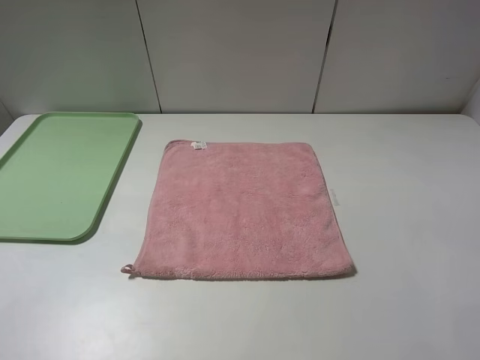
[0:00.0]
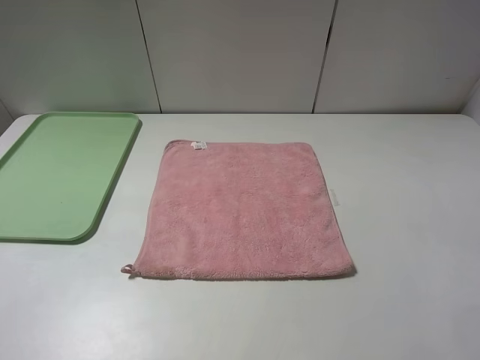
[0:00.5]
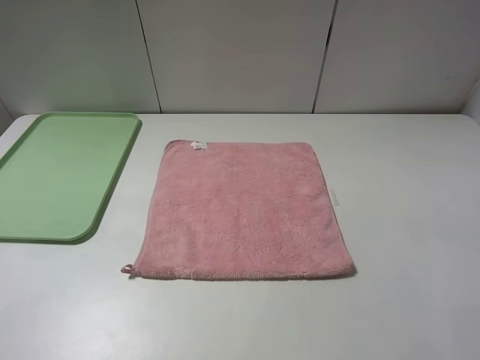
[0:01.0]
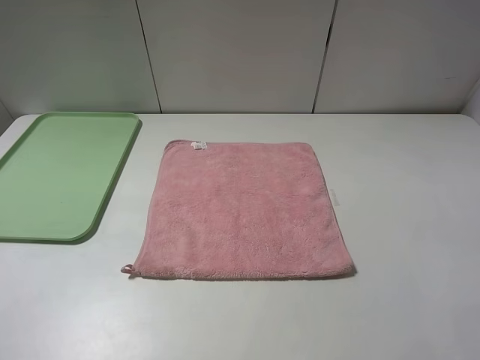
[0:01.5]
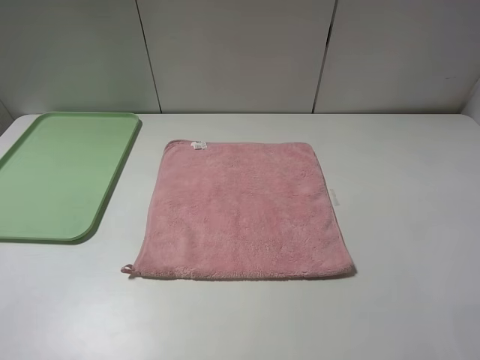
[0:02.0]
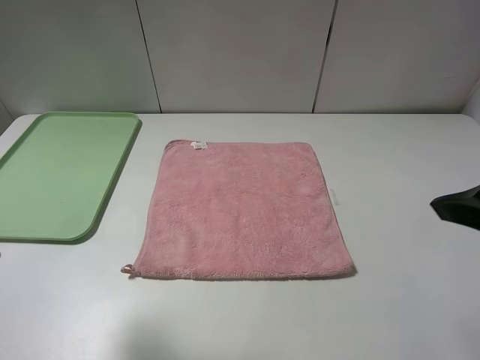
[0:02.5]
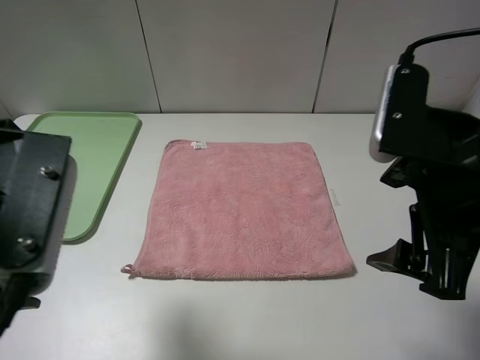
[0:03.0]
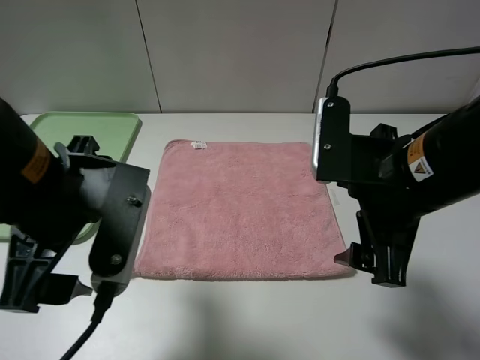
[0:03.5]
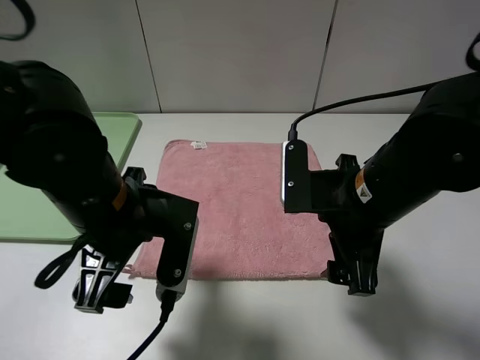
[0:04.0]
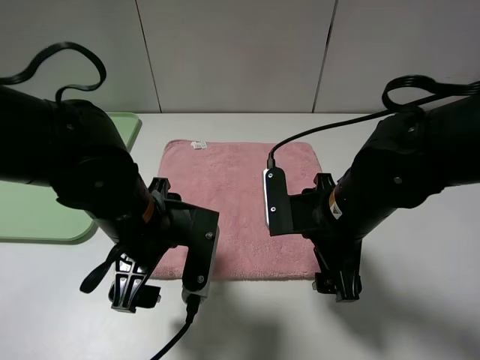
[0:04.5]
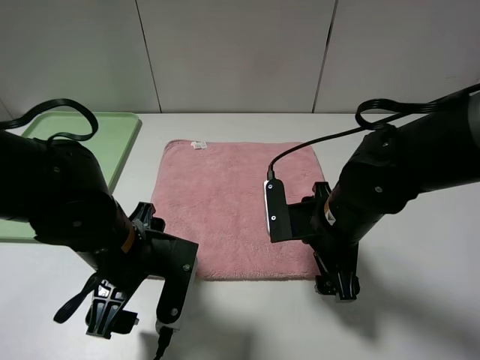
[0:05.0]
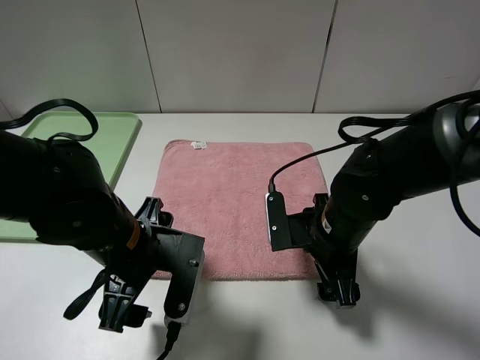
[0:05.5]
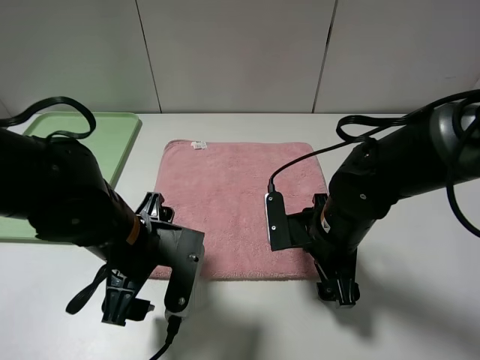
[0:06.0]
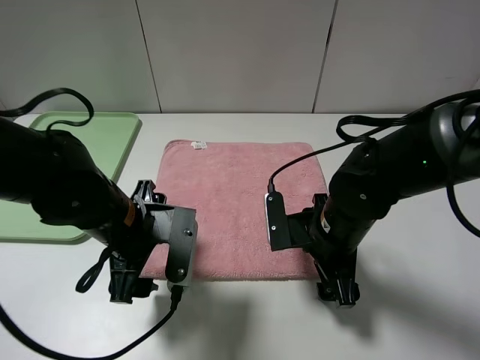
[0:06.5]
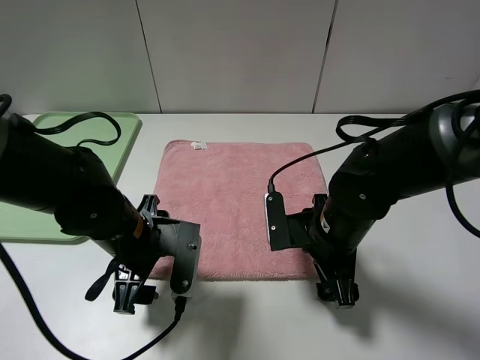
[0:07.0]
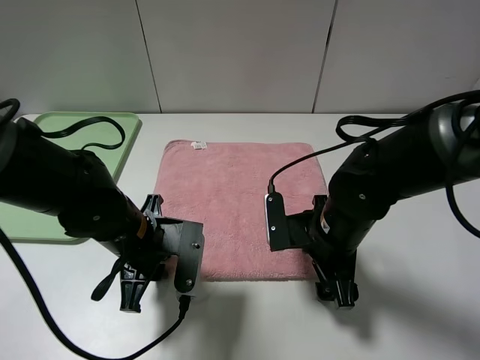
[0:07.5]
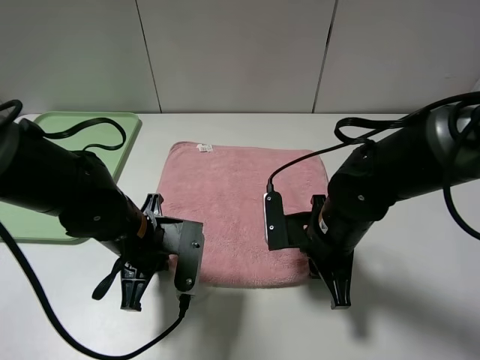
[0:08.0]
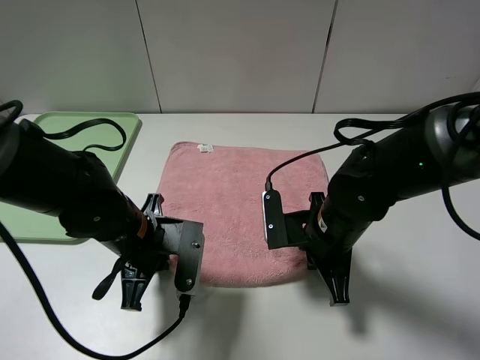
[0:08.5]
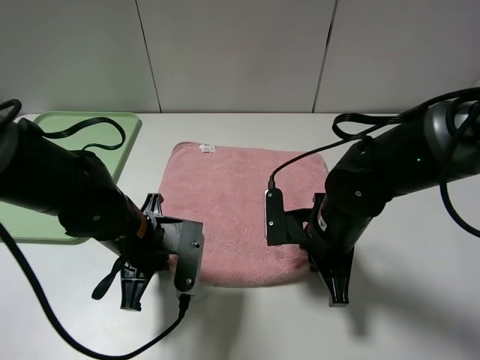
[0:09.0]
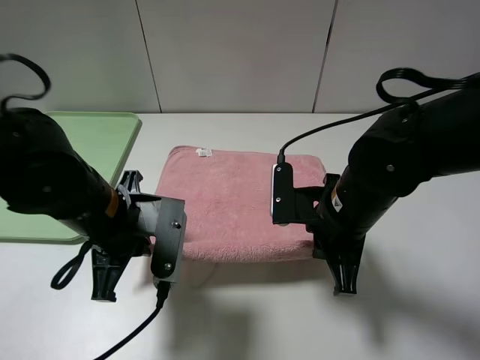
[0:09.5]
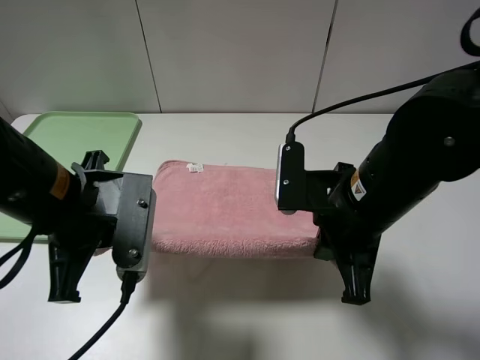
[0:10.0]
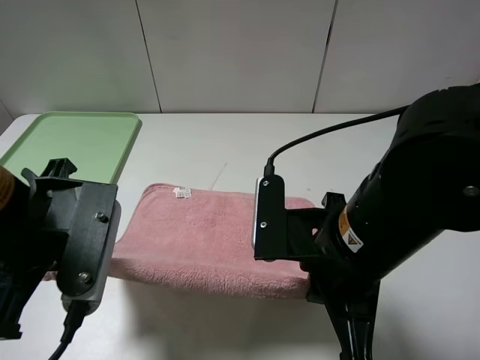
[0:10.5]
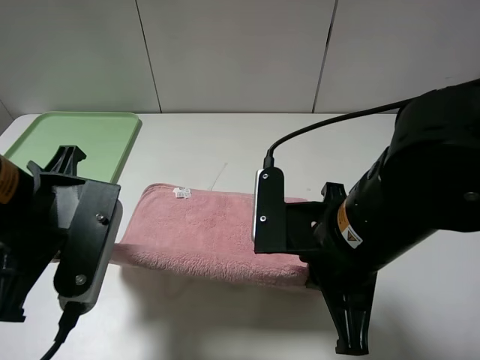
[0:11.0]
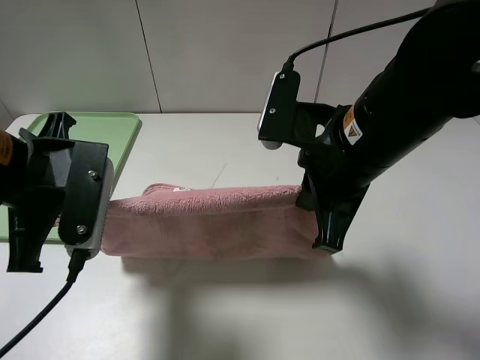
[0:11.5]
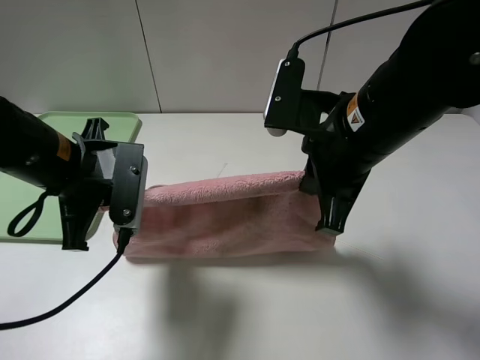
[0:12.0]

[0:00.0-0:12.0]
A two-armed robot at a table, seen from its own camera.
0:02.0 to 0:04.0: The left gripper shifts about 30 cm to the right, downward and forward; the right gripper moves to the left, downward and forward, about 25 cm.
0:04.0 to 0:06.0: The right gripper shifts some 10 cm downward.
0:06.0 to 0:08.0: The right gripper closes its fingers. The left gripper closes its fingers.
0:08.0 to 0:10.0: Both grippers travel together upward, approximately 10 cm.
0:10.0 to 0:12.0: The left gripper shifts approximately 5 cm forward, while the right gripper heads upward, covering approximately 5 cm.

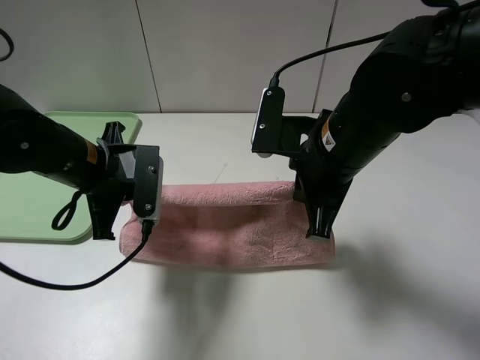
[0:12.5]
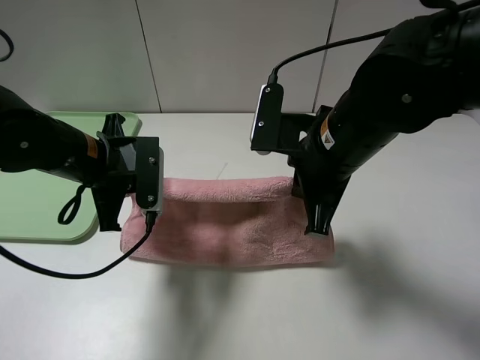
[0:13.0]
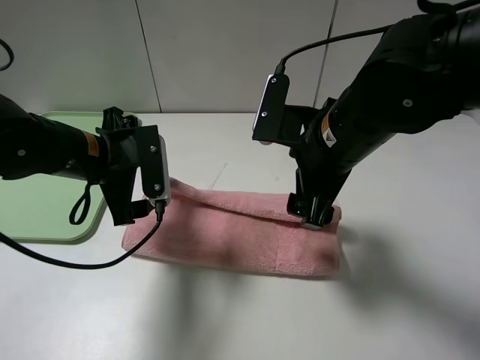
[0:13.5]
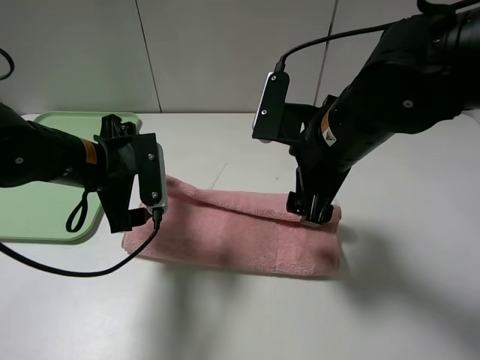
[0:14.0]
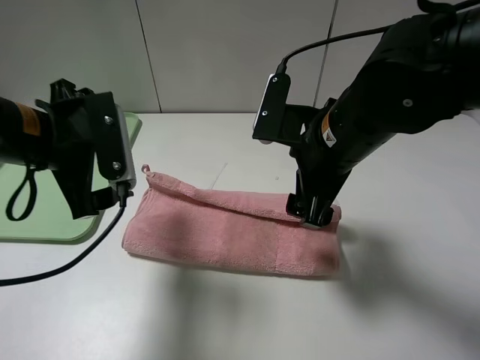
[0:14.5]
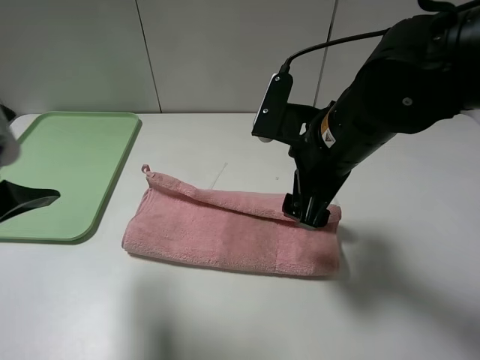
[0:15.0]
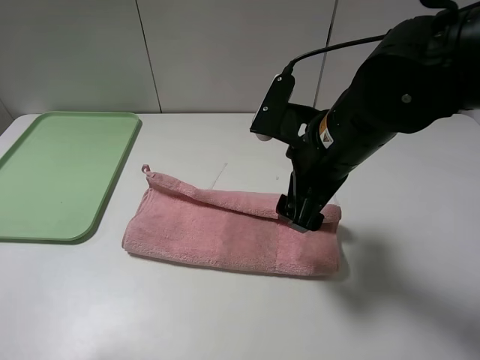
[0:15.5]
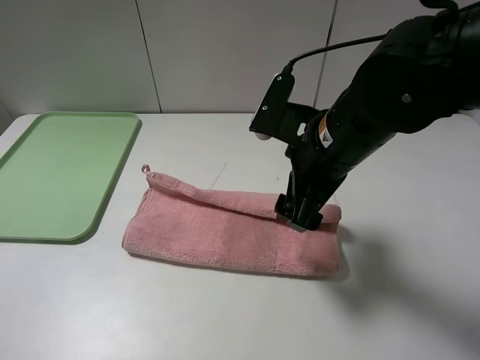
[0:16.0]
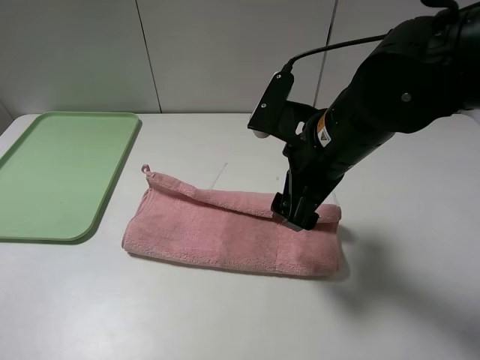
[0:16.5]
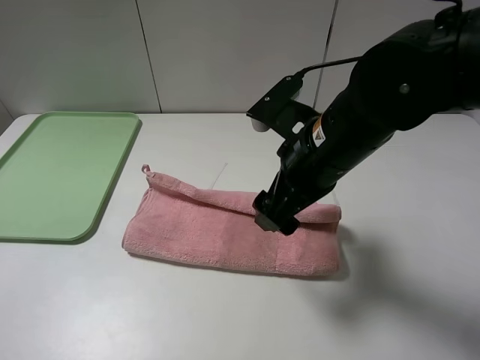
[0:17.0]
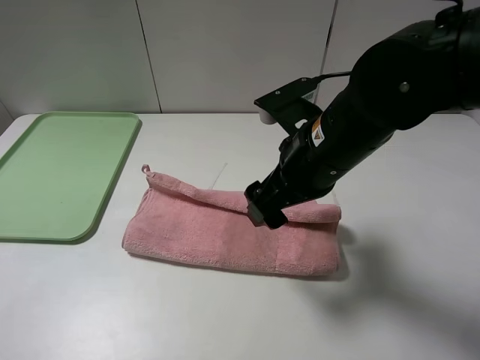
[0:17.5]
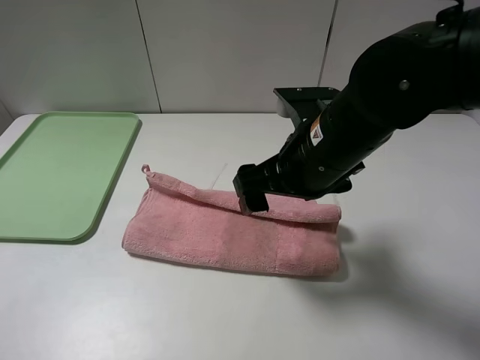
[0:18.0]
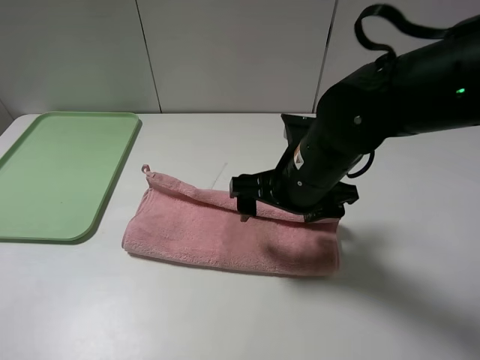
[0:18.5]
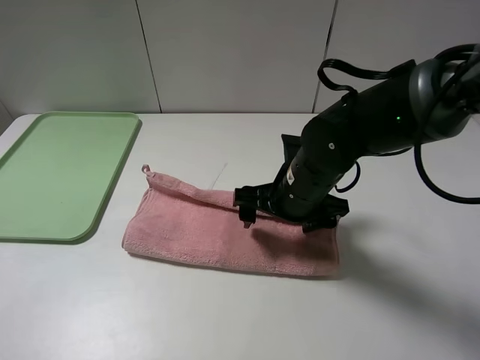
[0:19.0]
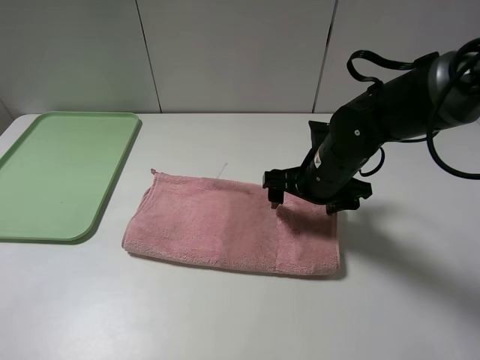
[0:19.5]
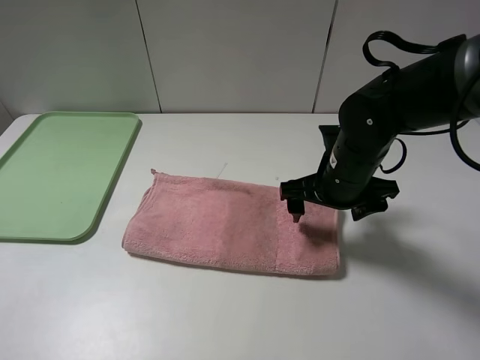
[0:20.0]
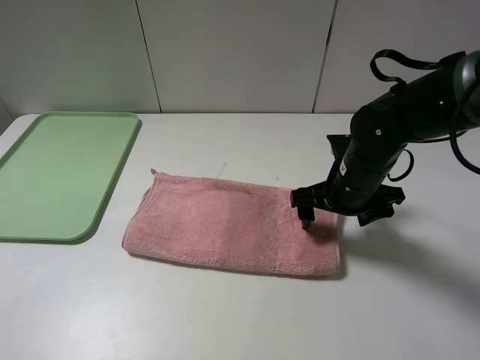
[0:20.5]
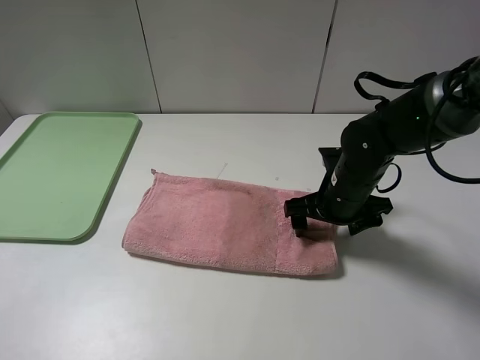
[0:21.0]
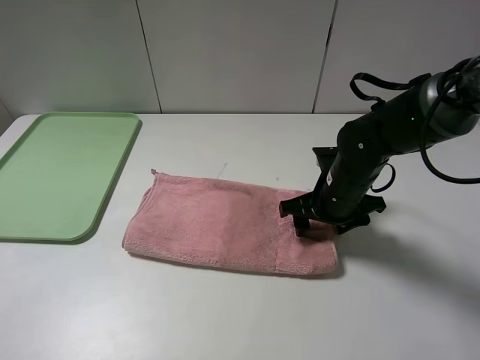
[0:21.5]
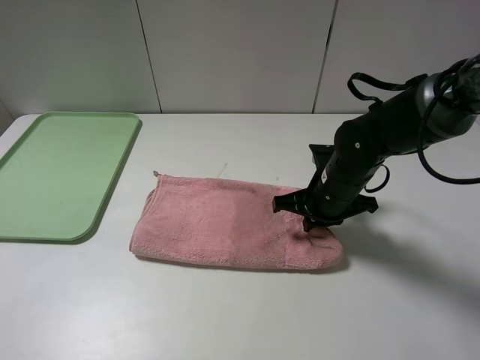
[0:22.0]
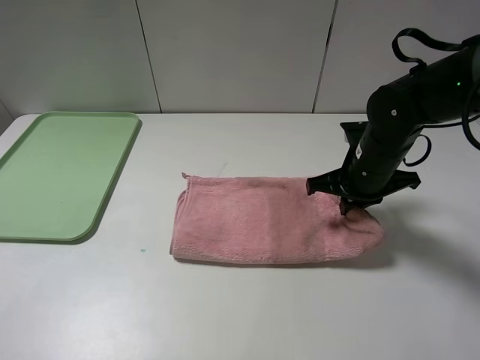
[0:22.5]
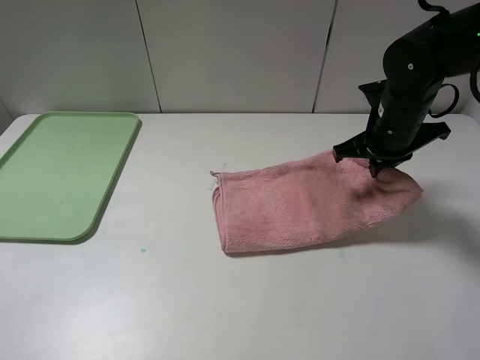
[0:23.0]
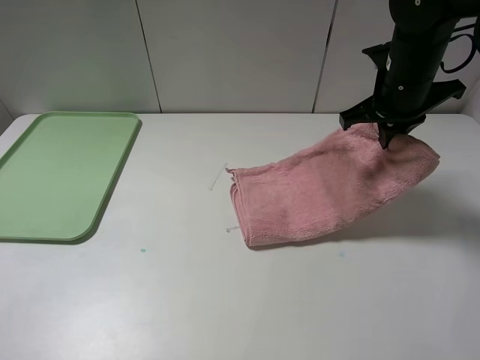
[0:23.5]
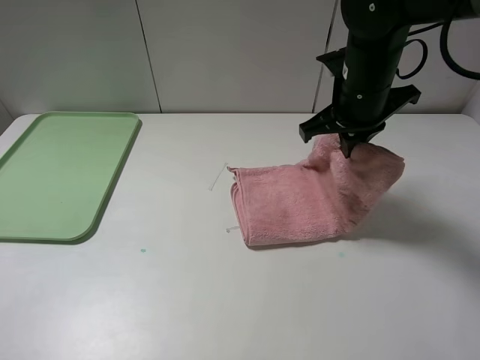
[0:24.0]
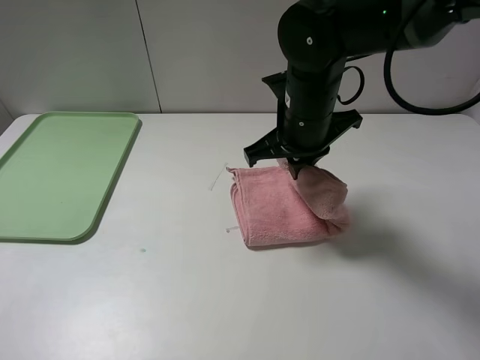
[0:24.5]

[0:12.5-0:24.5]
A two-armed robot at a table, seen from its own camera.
Step, 0:12.5 to 0:19.5: Fold the pink towel upwards.
0:12.5 to 0:14.5: The left gripper moves upward, approximately 5 cm, and opens, while the right gripper opens up.
0:14.5 to 0:16.5: The left gripper moves backward and to the left, about 25 cm.
0:18.5 to 0:20.5: The right gripper travels to the right by about 10 cm.
0:20.5 to 0:22.5: The right gripper closes.
0:22.5 to 0:24.5: The right gripper moves to the left and upward, some 15 cm.

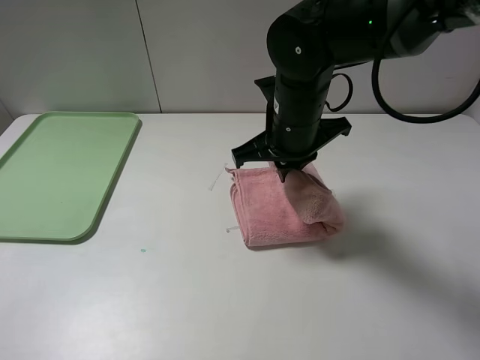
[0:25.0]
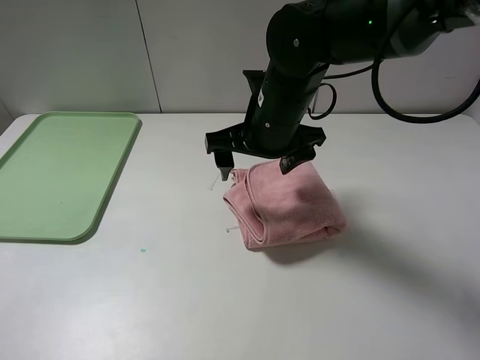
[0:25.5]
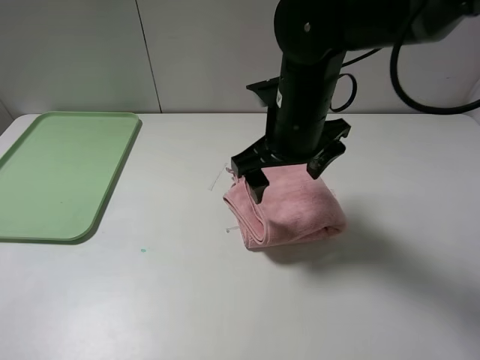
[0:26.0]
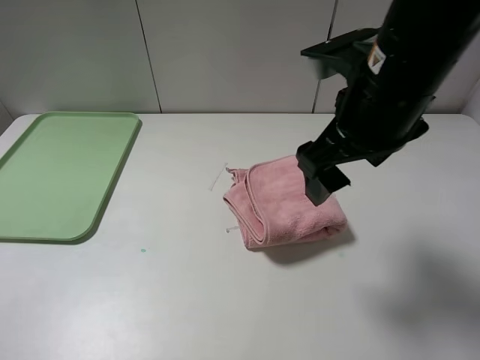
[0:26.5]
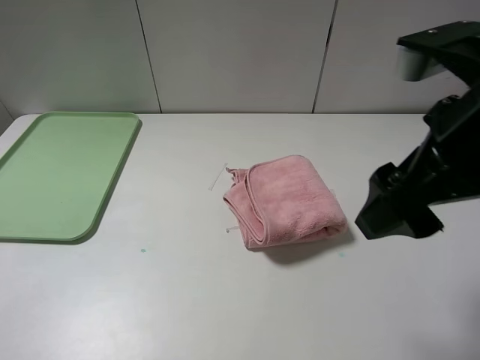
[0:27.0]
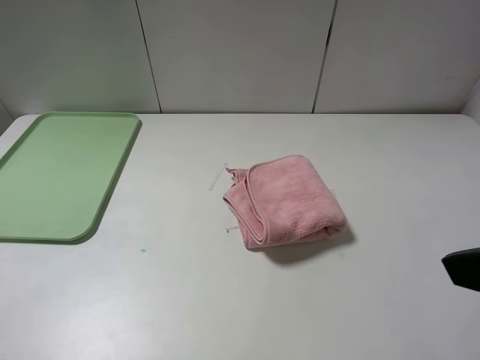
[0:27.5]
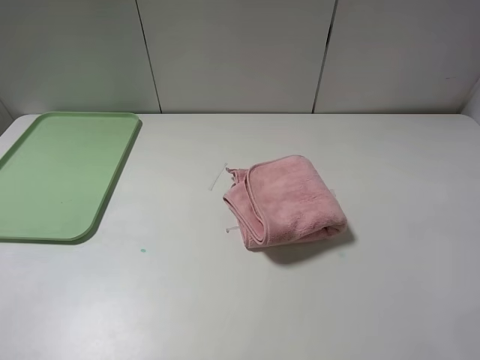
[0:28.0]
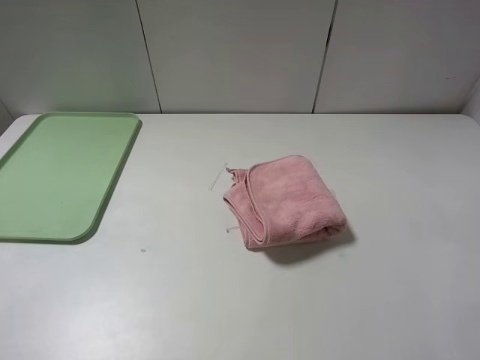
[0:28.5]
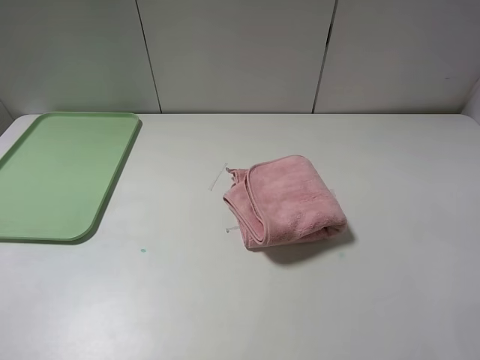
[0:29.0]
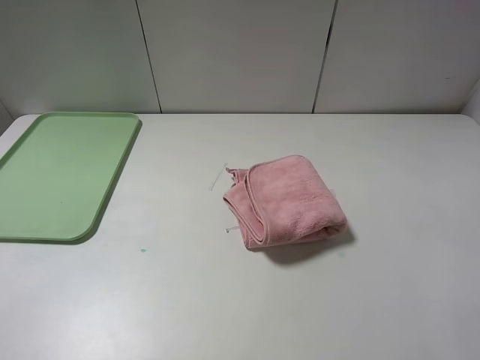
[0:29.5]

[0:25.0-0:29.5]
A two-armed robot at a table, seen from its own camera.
0:25.0 to 0:27.0: The right gripper travels backward, to the right and upward by roughly 25 cm, and opens its fingers.
0:27.0 to 0:29.5: The right gripper heads backward and to the right, covering some 20 cm.
